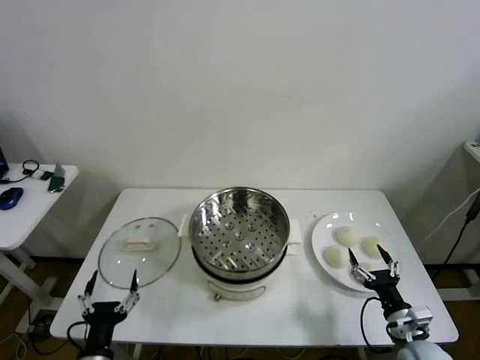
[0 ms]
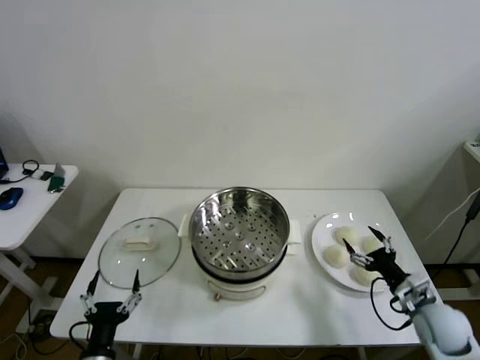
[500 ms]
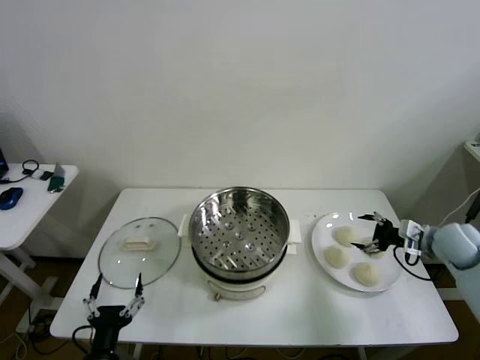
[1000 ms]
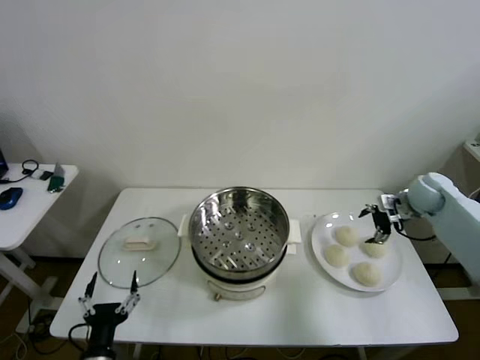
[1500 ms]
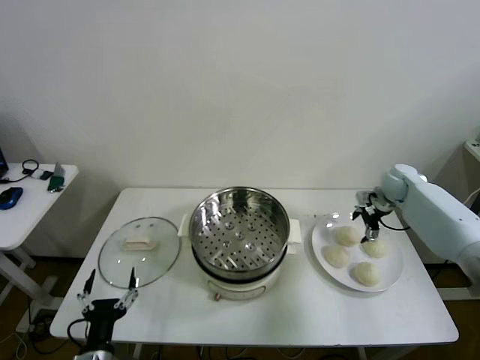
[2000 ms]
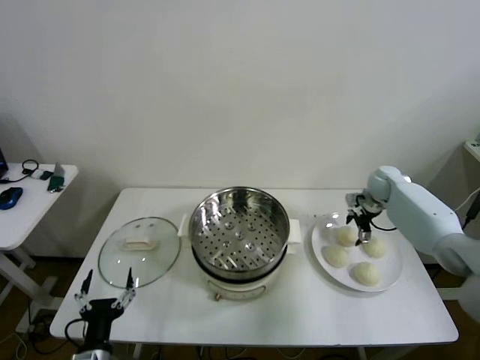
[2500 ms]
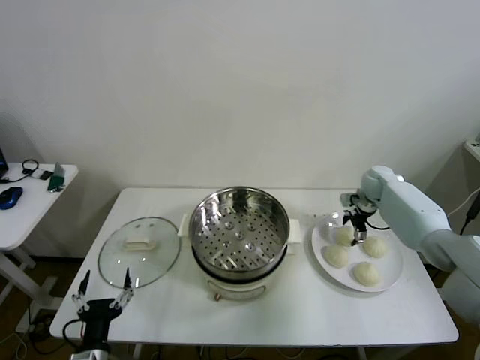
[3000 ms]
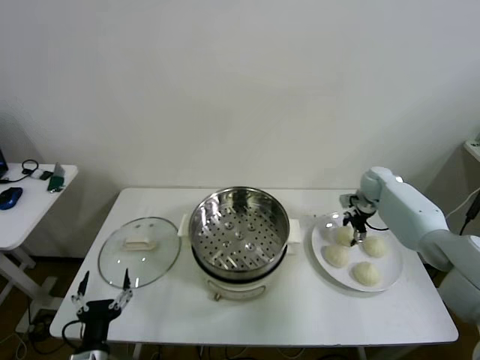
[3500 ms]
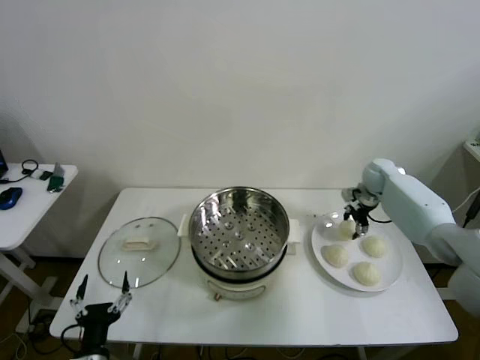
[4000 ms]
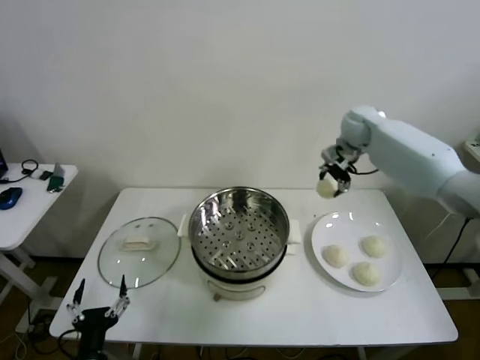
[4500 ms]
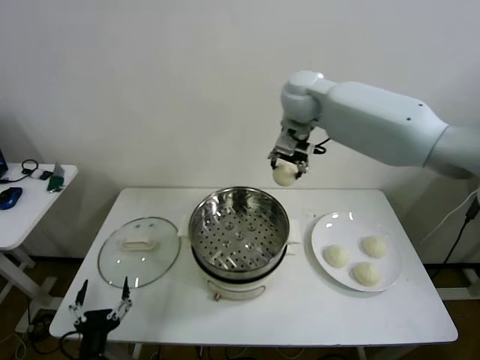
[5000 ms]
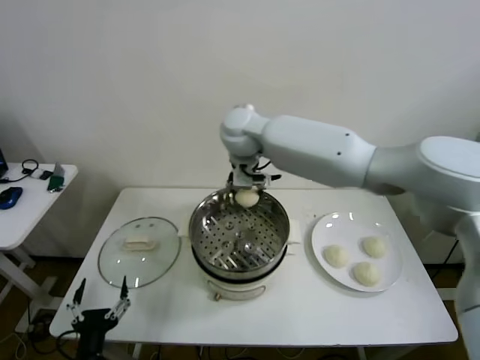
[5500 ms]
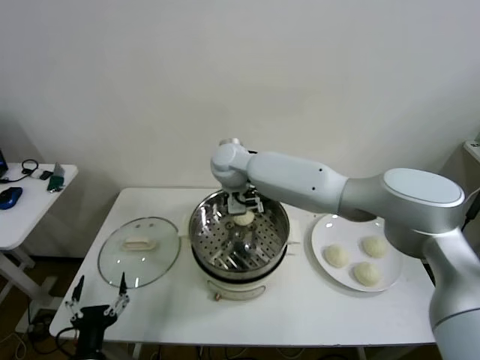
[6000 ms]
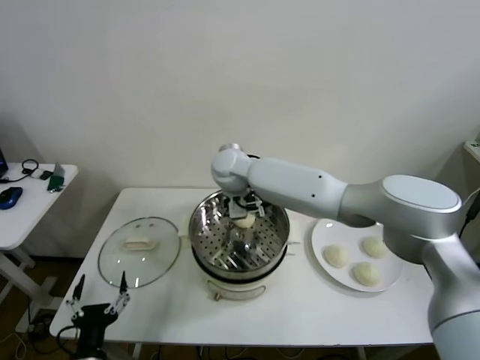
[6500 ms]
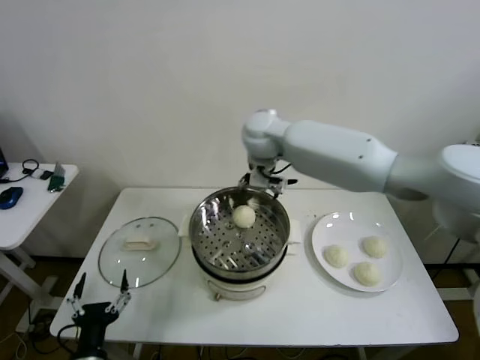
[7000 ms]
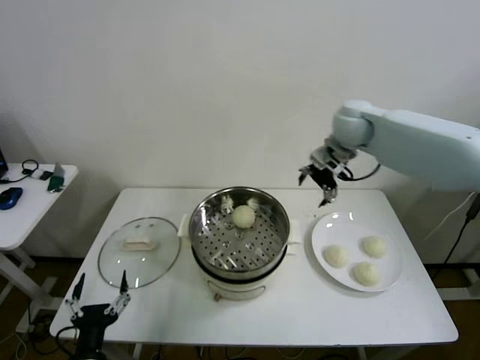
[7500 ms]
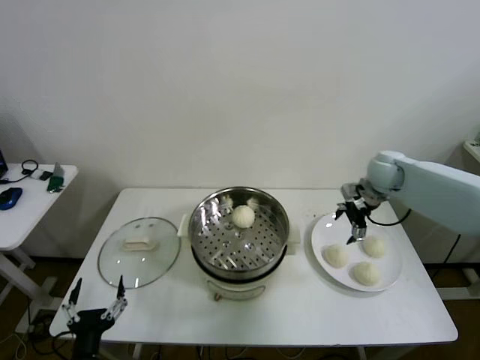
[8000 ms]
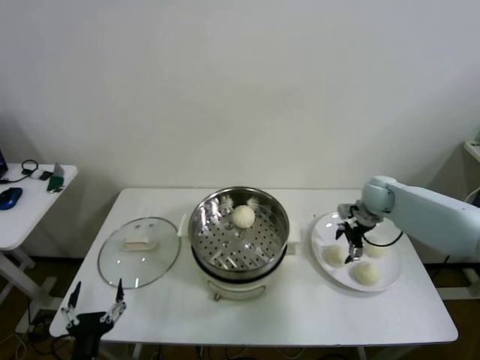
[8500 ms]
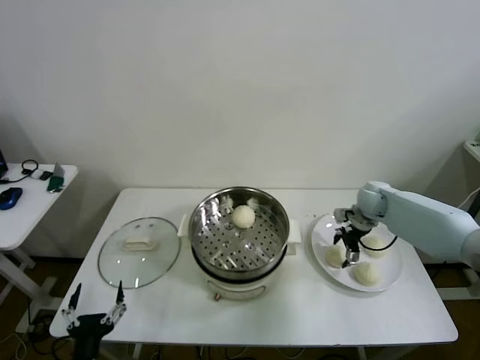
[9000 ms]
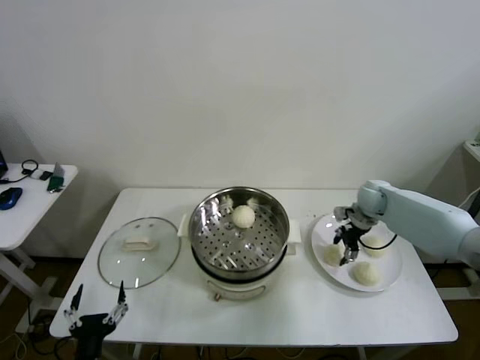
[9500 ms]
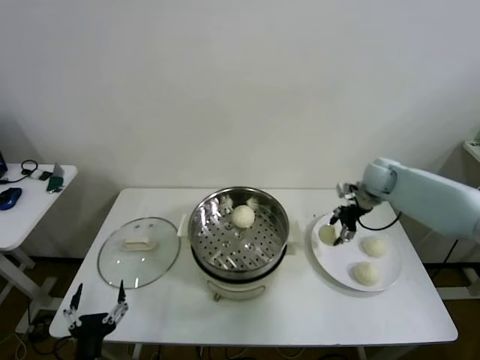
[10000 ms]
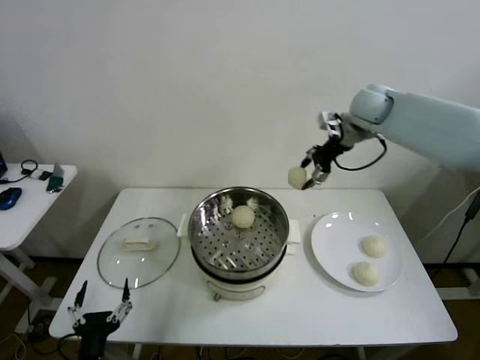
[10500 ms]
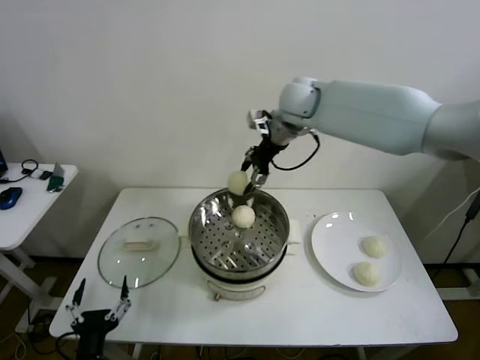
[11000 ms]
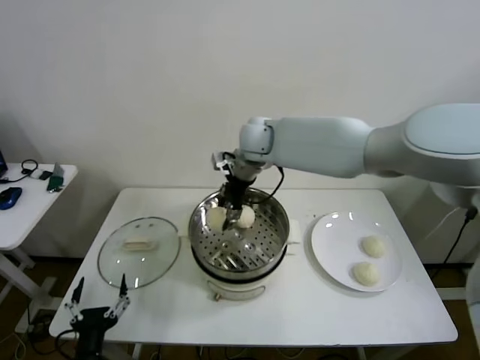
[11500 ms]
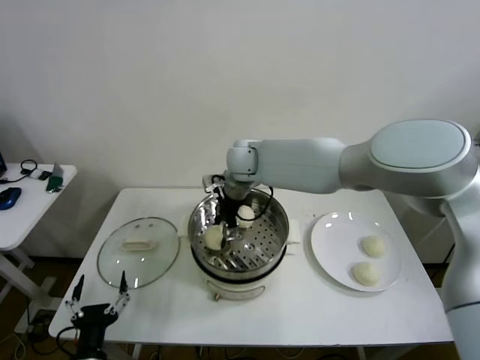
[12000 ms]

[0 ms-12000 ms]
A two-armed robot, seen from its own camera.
Step, 0 ms to 3500 ms: Grasp the baozi in the plate with right gripper.
Step, 4000 ms to 6500 ms: Place the baozi on the steamer with right gripper.
Step, 7000 ms to 9000 ms: Grasp the baozi in the plate with right gripper.
2000 ms to 4000 ms: The right gripper ends up approximately 5 cm from where it was, and closes.
4000 ms to 6000 ms: The right gripper goes roughly 40 cm to the left.
6000 ms to 8000 ms: The right gripper is displaced to the right by about 40 cm, and opens its fingers.
8000 ms to 10000 ms: The right gripper goes downward and returns, about 10 cm each way, and closes.
10000 ms to 12000 ms: The right gripper moves to the left, approximately 35 cm.

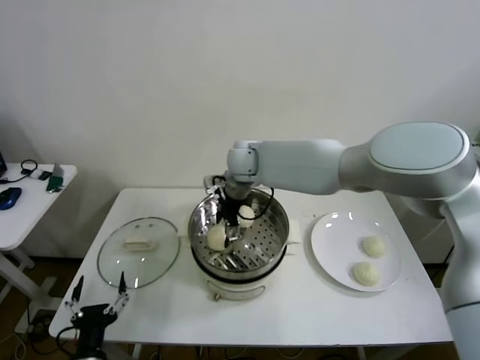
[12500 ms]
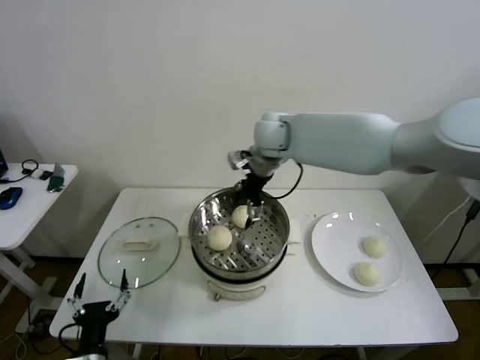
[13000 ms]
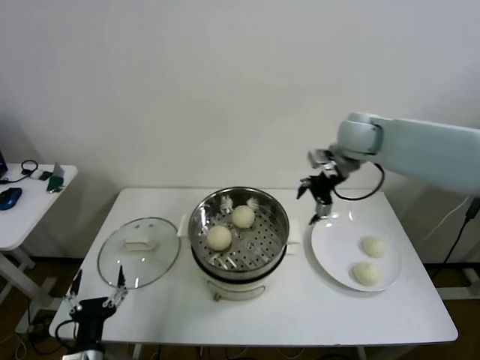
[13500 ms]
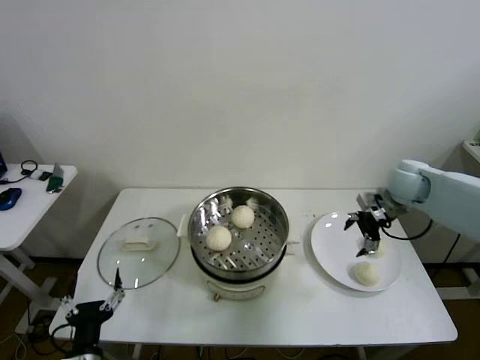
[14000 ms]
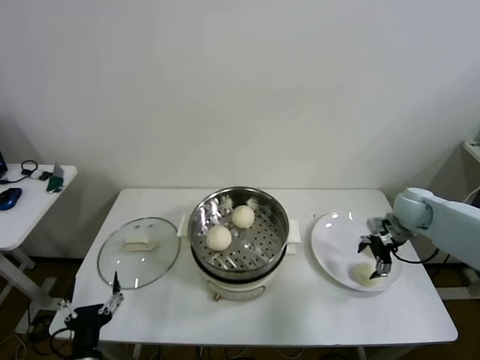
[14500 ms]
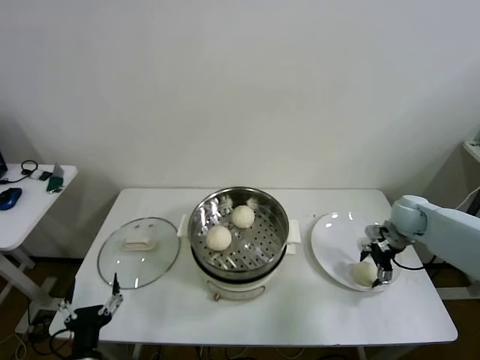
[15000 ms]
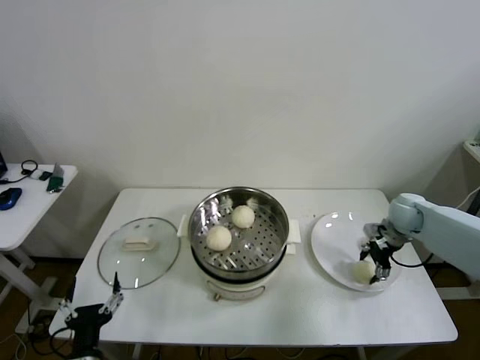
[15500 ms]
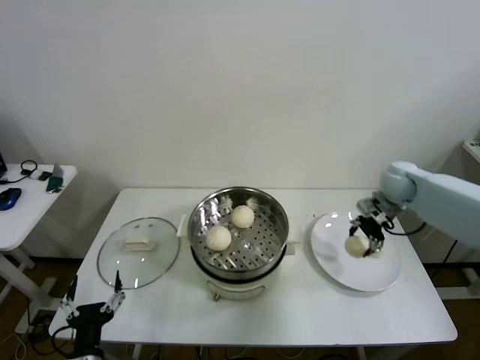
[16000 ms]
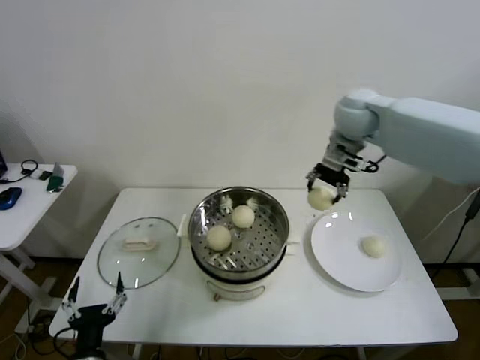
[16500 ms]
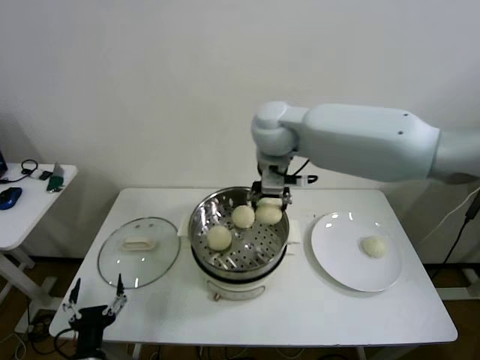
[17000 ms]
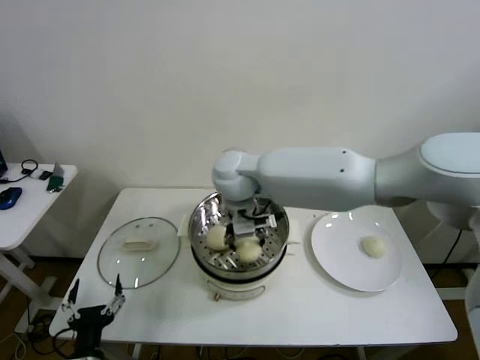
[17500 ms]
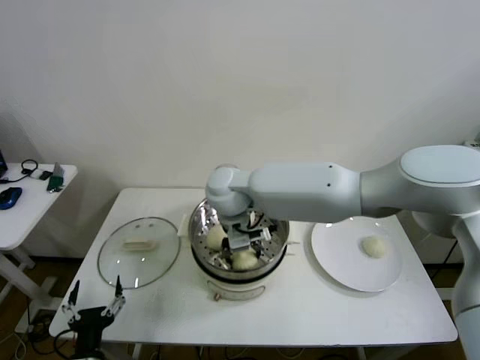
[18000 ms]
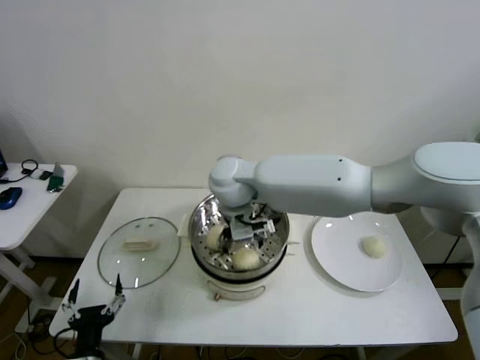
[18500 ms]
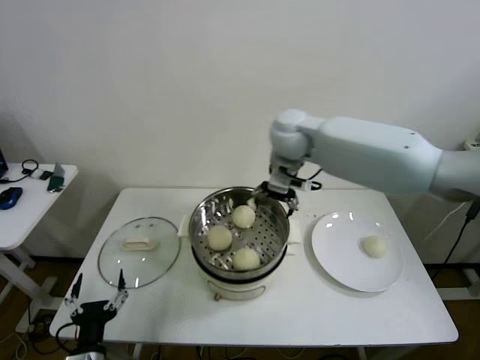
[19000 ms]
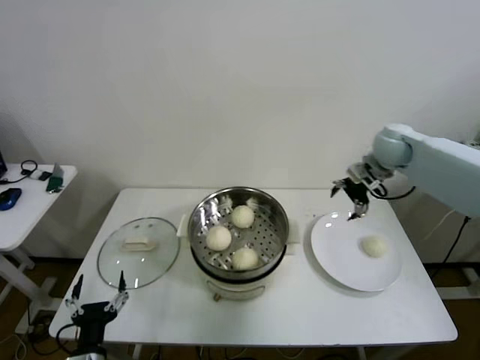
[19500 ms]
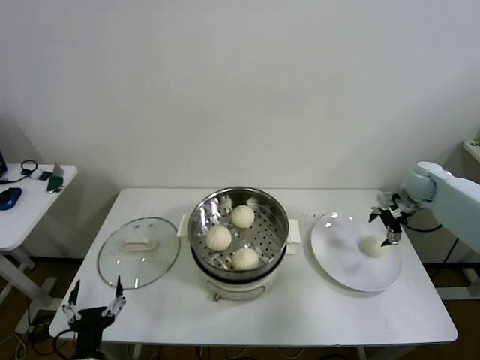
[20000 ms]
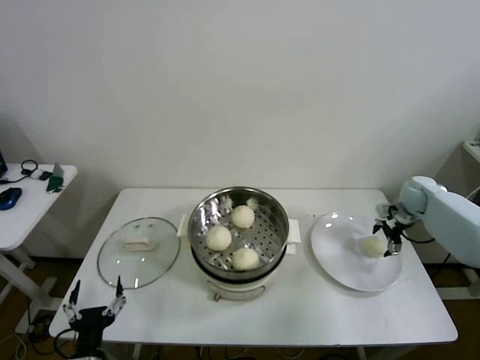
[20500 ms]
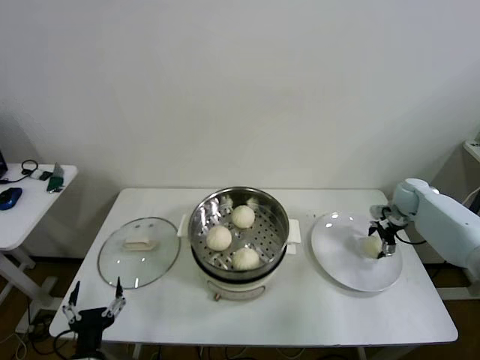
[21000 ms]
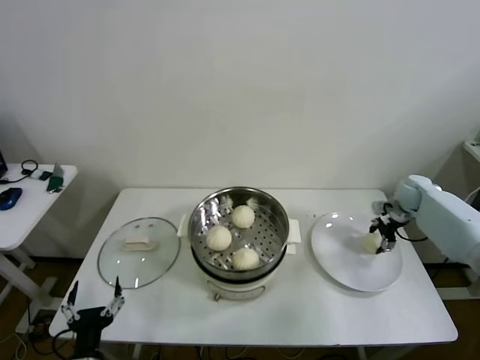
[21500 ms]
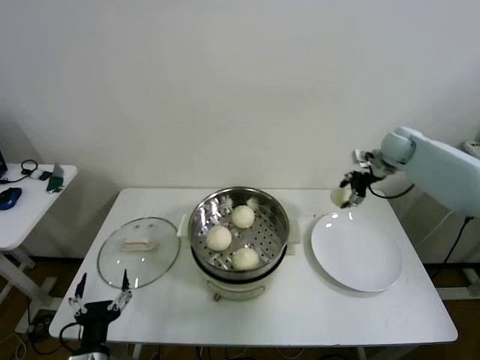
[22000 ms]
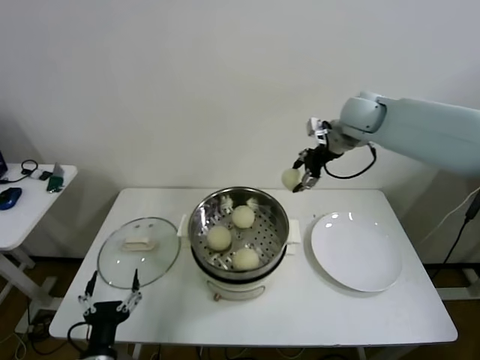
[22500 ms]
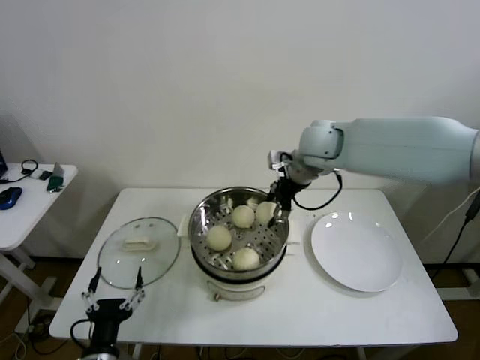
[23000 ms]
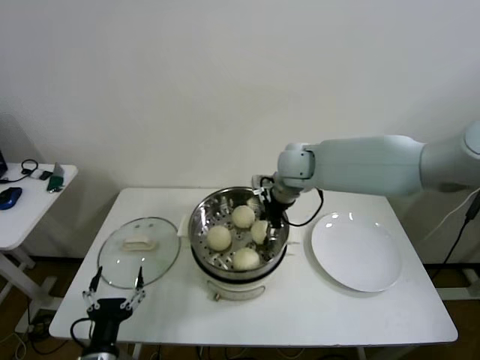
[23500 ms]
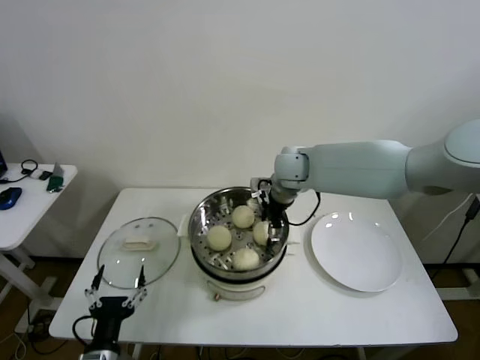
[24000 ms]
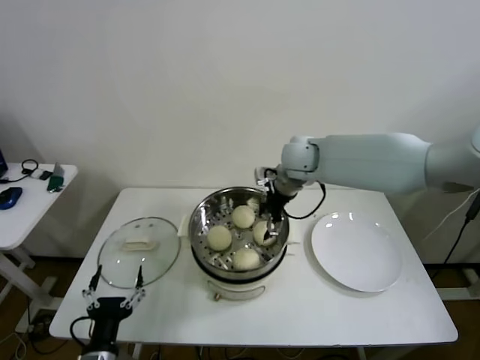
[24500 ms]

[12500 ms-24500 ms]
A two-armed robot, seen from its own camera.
Step, 13000 ms to 15000 ms: Grasp the baozi in the plate with right gripper.
Step, 15500 ms to 18000 ms: Place the baozi on the steamer with right gripper.
Step, 18500 ms to 21000 ms: Grasp the baozi in the plate with right gripper.
Step, 21500 ms to 24000 ms: Place the baozi on the steamer with right gripper.
12500 ms to 14500 ms: The right gripper moves to the right, roughly 40 cm.
14500 ms to 16500 ms: The right gripper travels upward and to the left by some 30 cm, and closes.
16500 ms to 18500 ms: The right gripper goes approximately 25 cm to the left and downward, and opens up.
18500 ms to 20500 ms: The right gripper moves to the right, roughly 50 cm.
20500 ms to 22500 ms: The right gripper is displaced upward and to the left by some 30 cm, and closes up.
22500 ms to 24500 ms: The right gripper heads to the left and downward, covering approximately 15 cm, and opens its fingers.

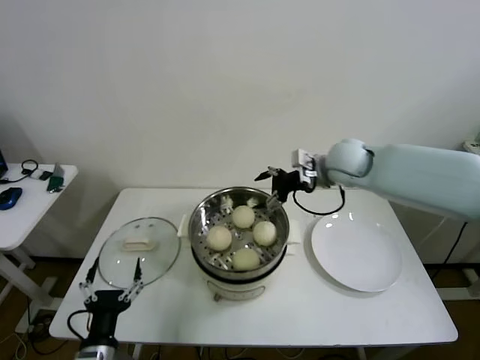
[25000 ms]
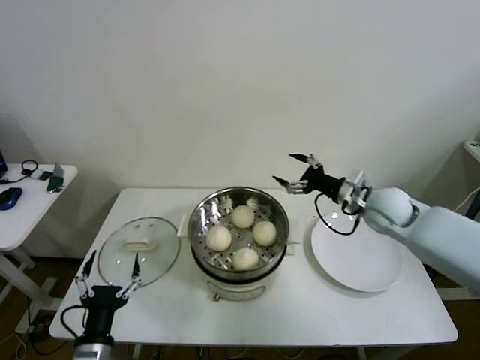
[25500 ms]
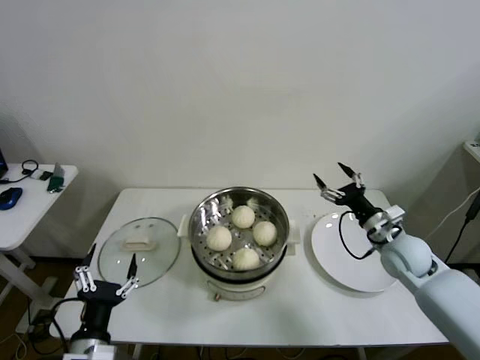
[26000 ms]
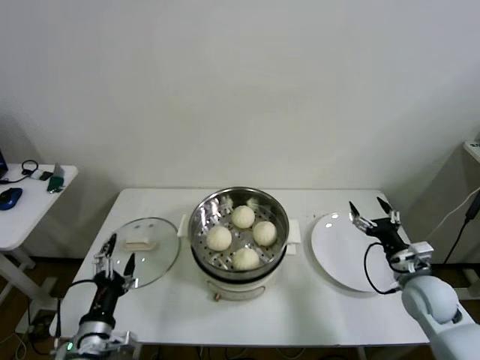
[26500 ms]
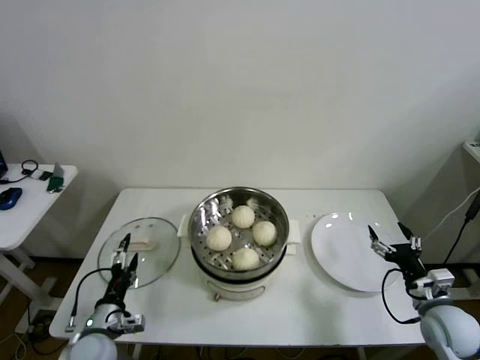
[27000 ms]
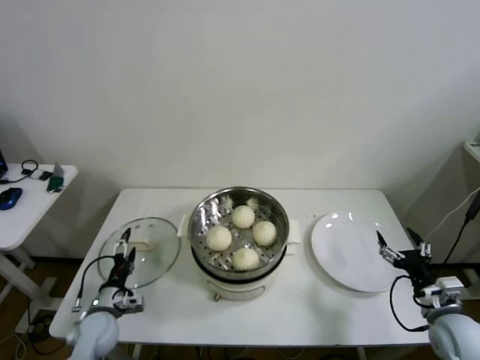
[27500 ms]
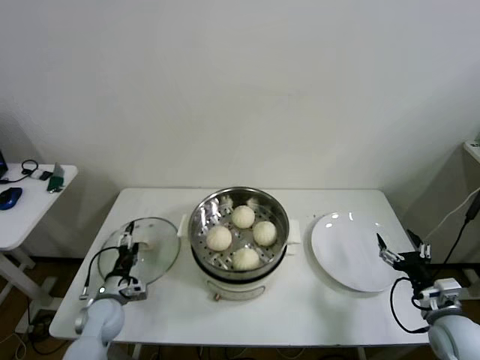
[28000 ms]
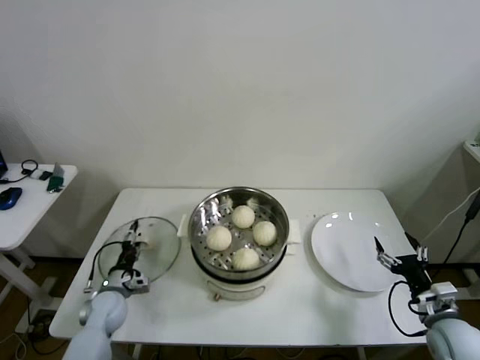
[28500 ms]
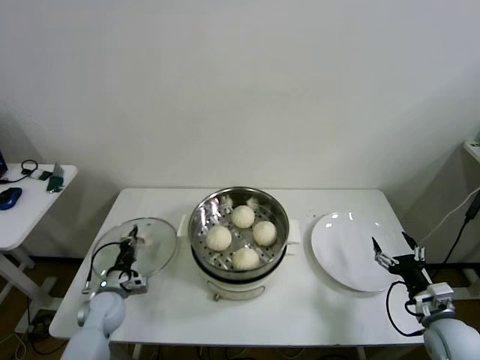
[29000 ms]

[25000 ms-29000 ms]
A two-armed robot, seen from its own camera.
Step, 25000 ms to 28500 ms: Grasp the pot lid with left gripper.
25000 ms to 27000 ms: The left gripper heads forward, covering about 10 cm; the right gripper heads backward, downward and to the right, covering approximately 40 cm.
27000 ms to 29000 ms: The left gripper moves forward and downward, roughly 15 cm, and closes up.
